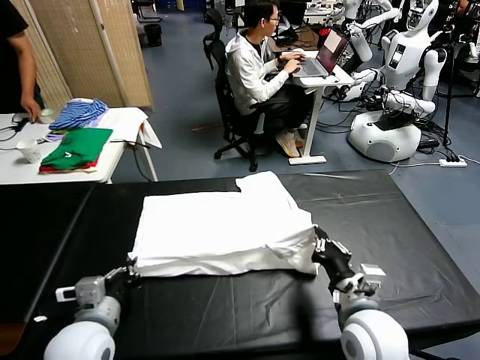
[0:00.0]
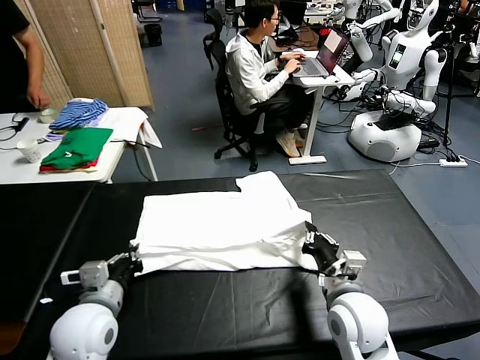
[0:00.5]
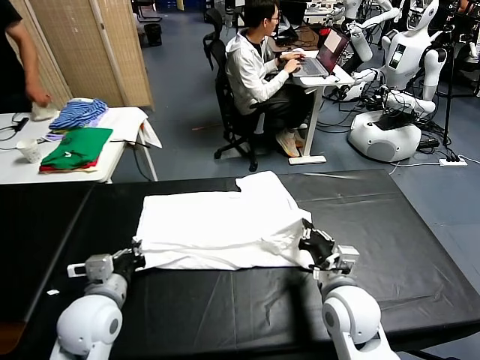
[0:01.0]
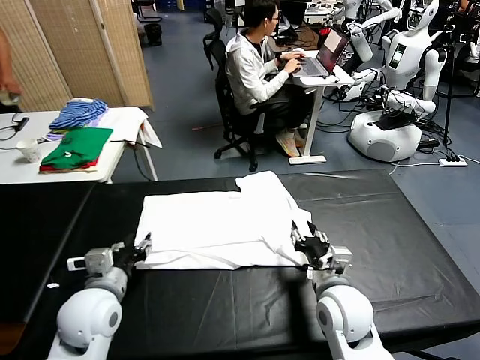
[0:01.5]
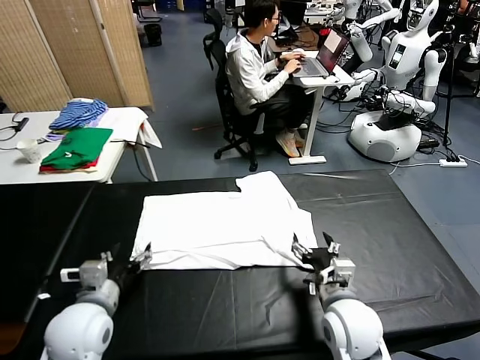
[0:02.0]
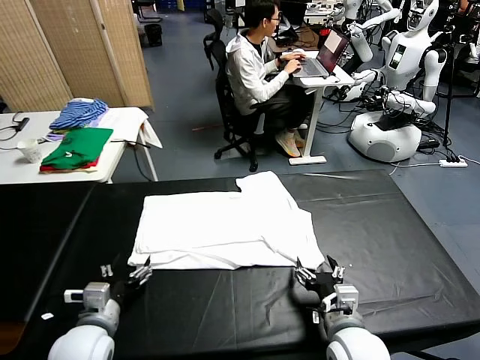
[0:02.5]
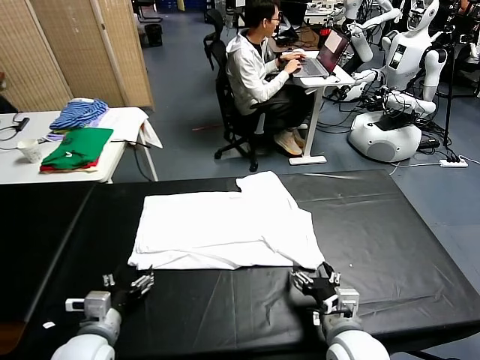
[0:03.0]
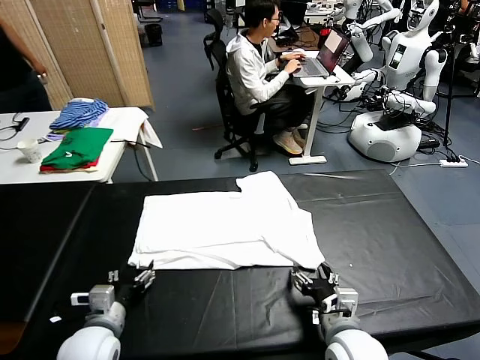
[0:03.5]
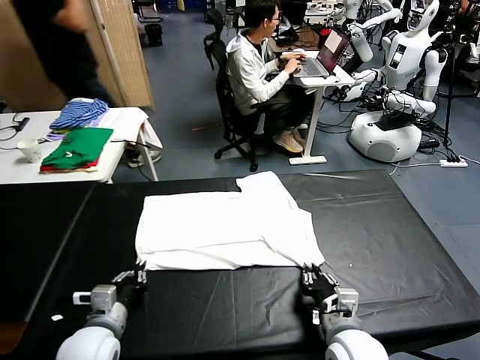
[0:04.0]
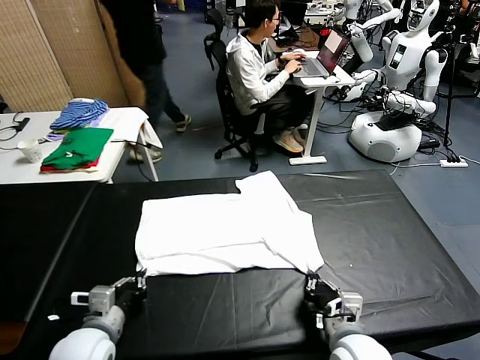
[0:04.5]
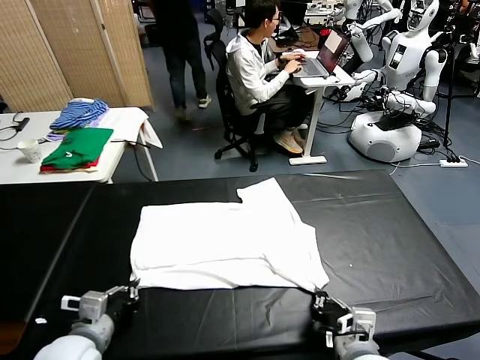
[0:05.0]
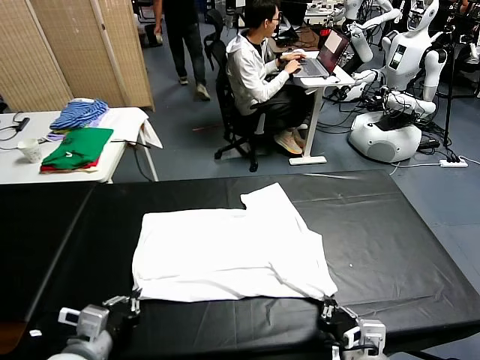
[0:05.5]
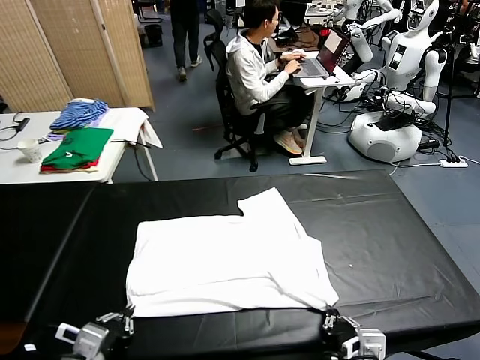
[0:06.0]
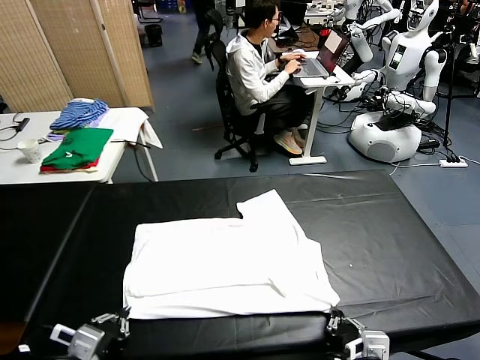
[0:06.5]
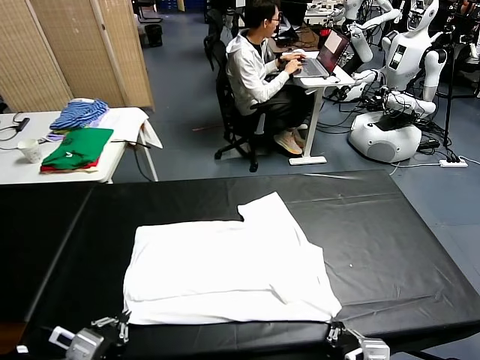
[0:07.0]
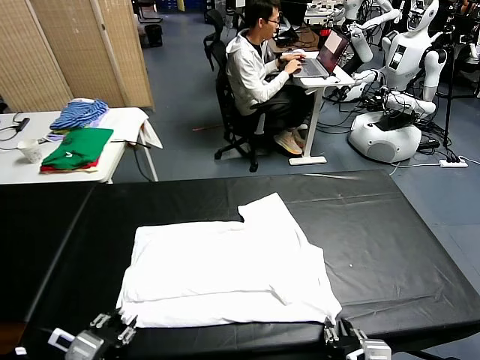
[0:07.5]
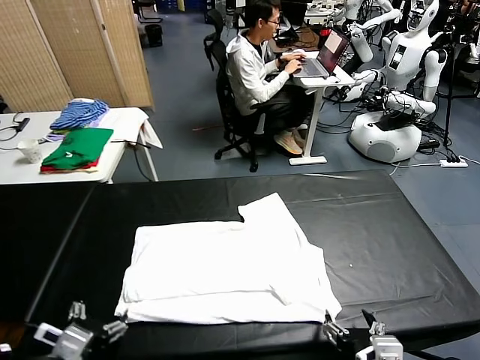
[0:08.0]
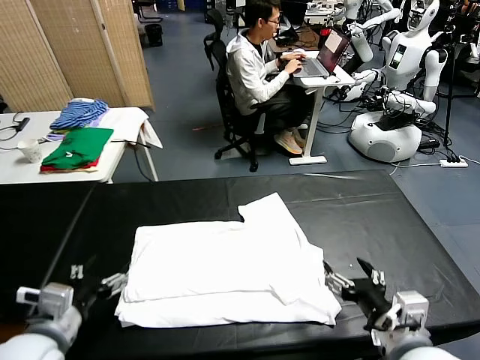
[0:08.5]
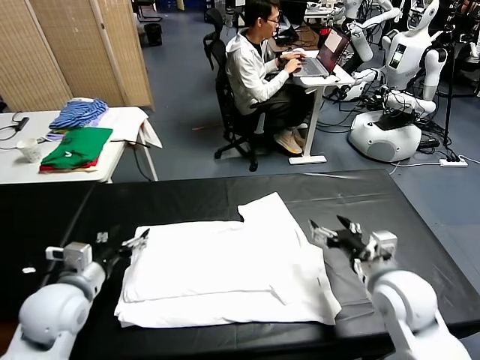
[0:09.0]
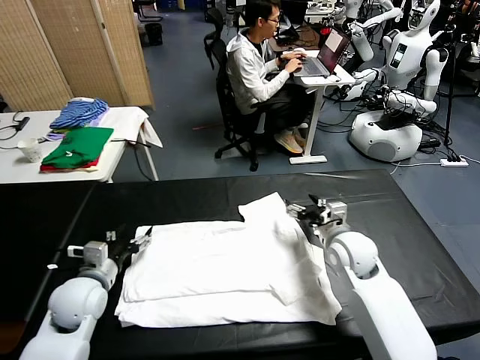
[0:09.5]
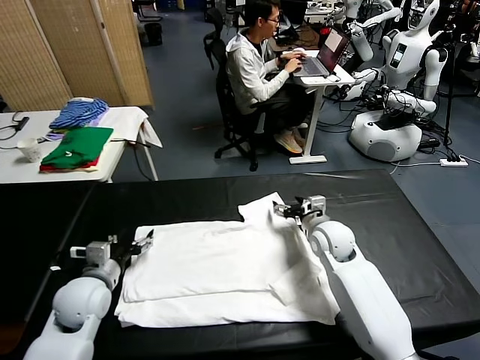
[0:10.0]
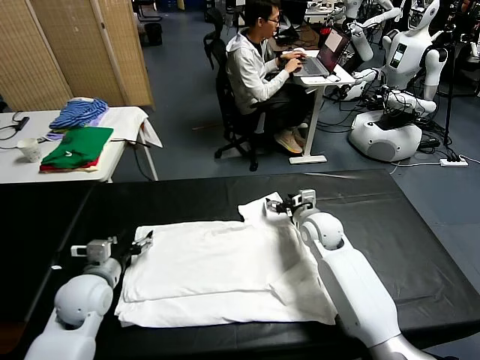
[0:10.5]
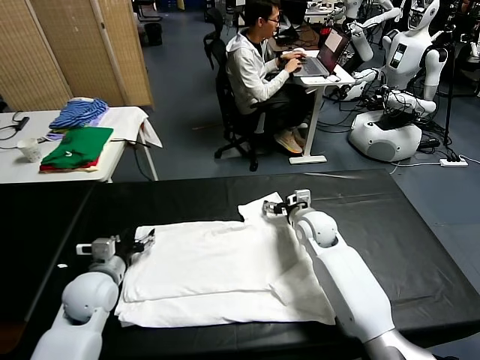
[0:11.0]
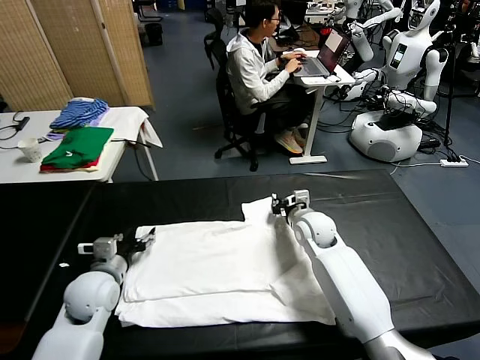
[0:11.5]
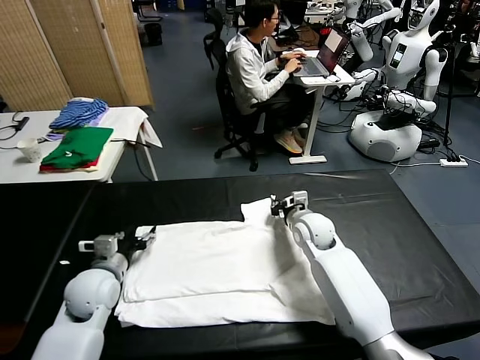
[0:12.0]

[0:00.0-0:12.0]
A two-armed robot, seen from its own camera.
Task of the whole recording: fold and organize the clothes.
Step, 0:00.0 to 0:01.5: use both grippers to drag the lower edge of the fabric forward and fold it over the upper edge.
Step, 0:02.0 to 0:07.5: Drag the clothes downward with both gripper.
0:00.0 to 0:02.0: The left gripper is displaced downward by roughly 5 cm, and opens; the right gripper moves backward, roughly 5 cm, and opens its fingers.
0:02.0 to 0:04.0: The right gripper closes its fingers; the left gripper travels backward and upward by roughly 10 cm, and closes.
0:04.0 to 0:06.0: The right gripper shifts some 5 cm backward.
0:06.0 to 0:08.0: The left gripper goes about 20 cm forward, and opens; the right gripper heads forward and to the right, covering roughly 20 cm, and opens its fingers.
0:08.0 to 0:10.0: The right gripper is displaced forward, to the left and downward by some 25 cm.
0:10.0 to 0:12.0: The left gripper closes its fingers; the right gripper closes its fingers.

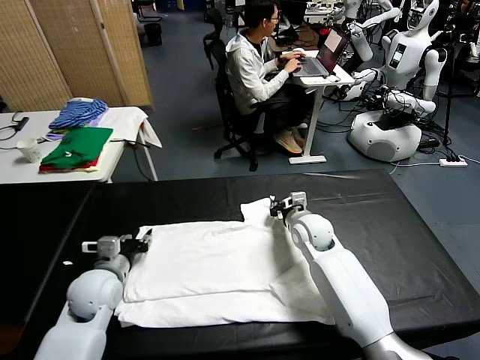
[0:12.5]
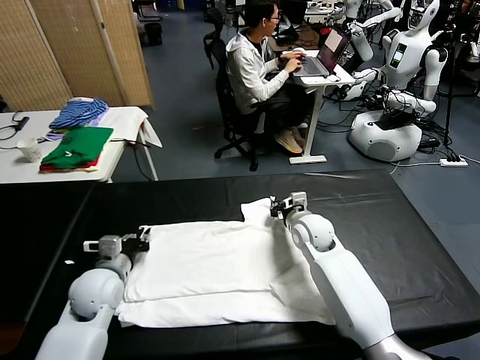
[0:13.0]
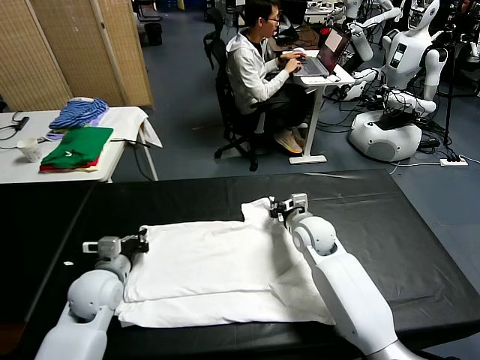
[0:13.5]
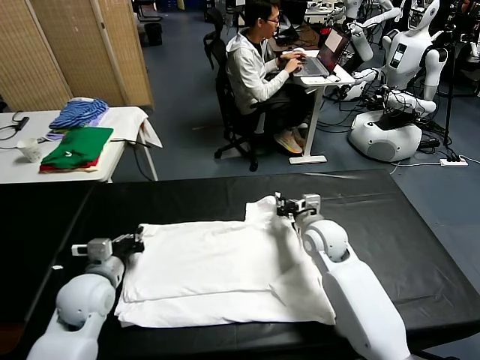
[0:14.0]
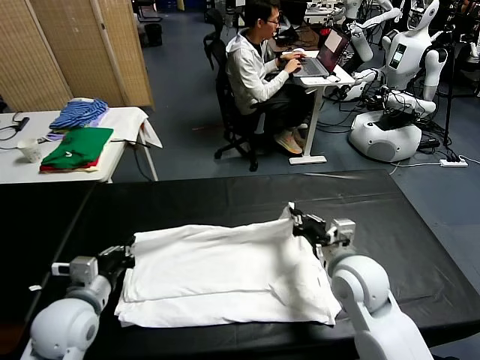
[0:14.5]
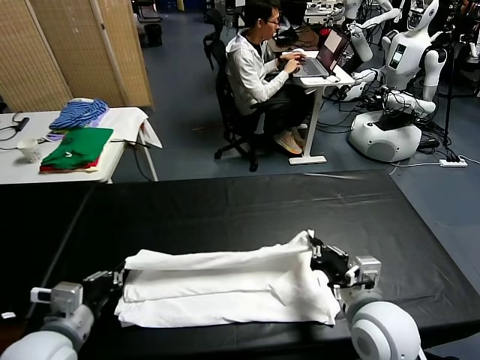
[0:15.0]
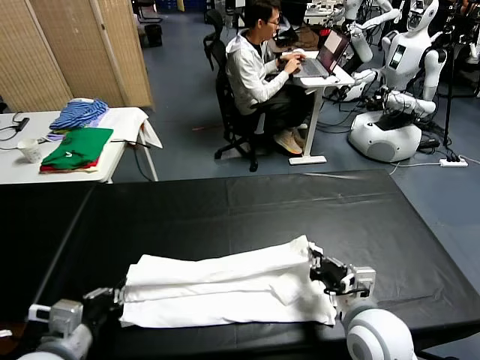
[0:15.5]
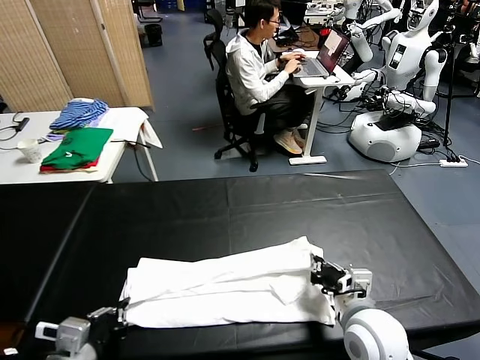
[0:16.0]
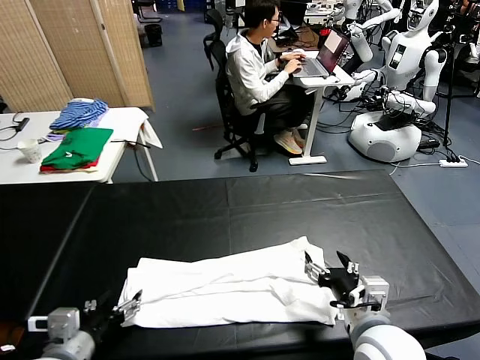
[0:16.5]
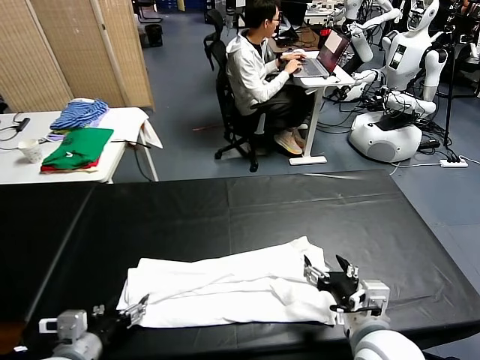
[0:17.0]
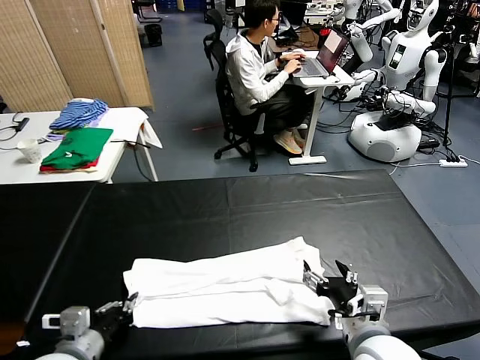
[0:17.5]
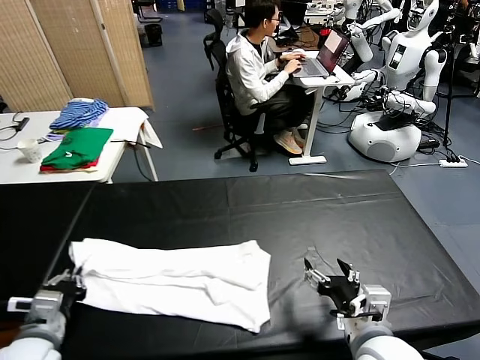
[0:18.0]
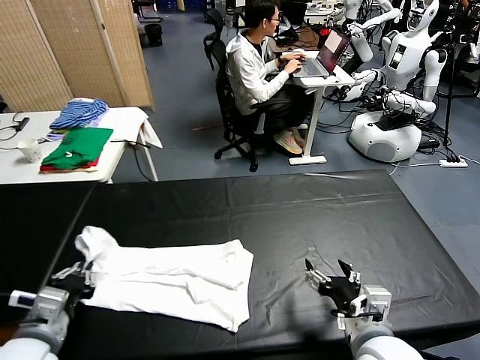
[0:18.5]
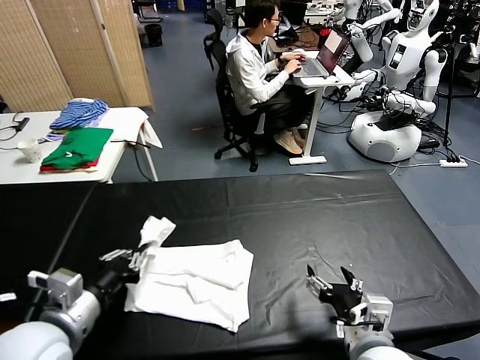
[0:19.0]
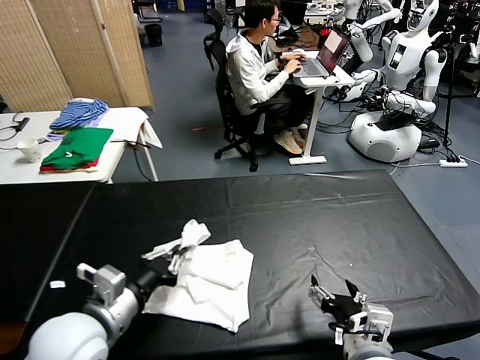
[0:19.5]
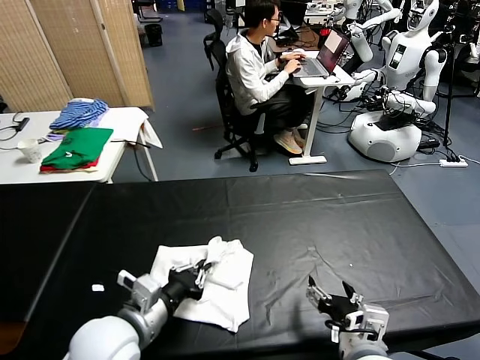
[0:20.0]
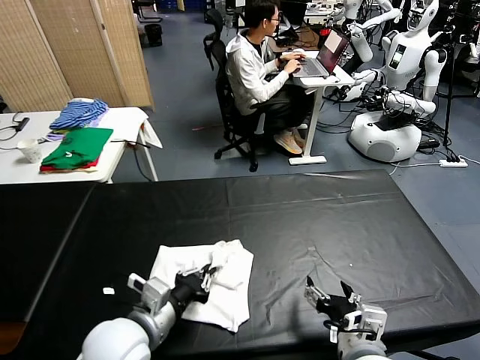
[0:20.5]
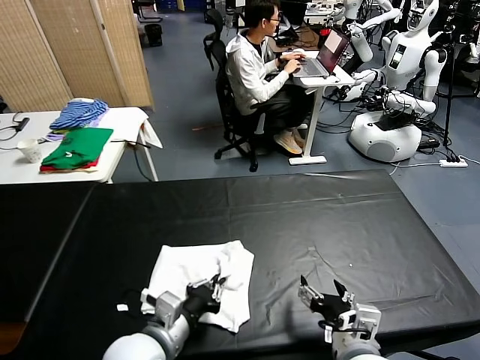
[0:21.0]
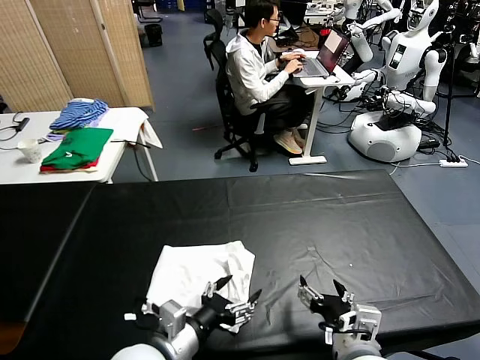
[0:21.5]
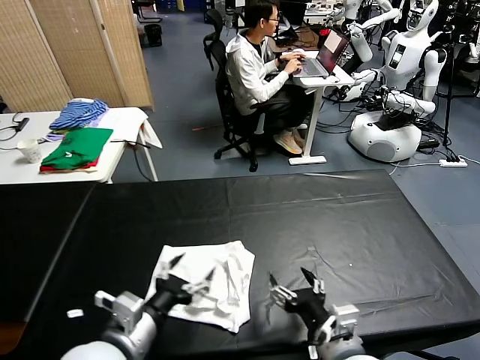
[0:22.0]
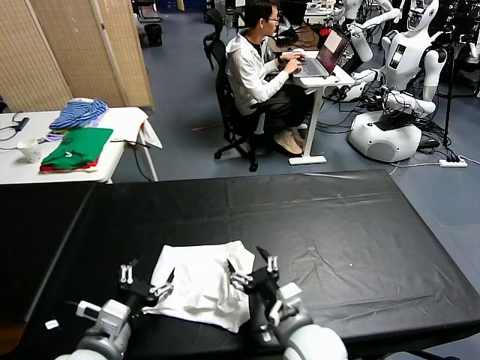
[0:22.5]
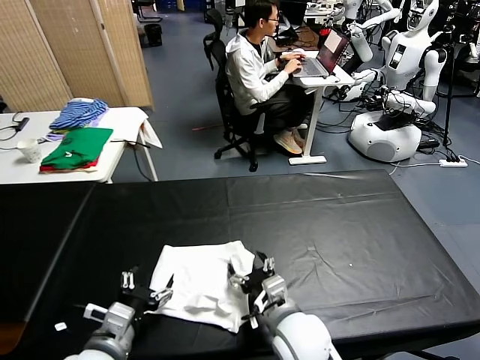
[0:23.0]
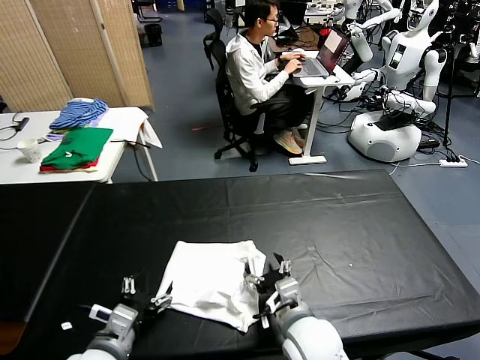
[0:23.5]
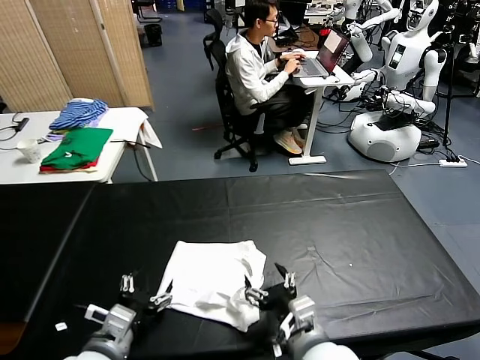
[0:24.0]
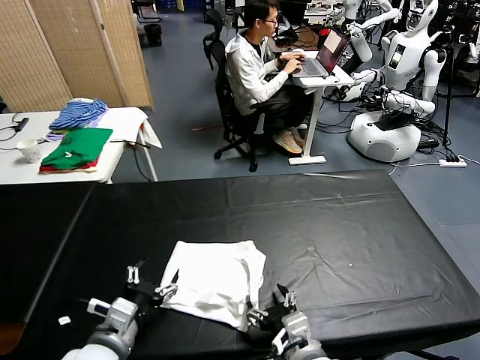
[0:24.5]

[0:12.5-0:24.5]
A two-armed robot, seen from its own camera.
Task of the whole recording: fold and organize the clothes.
Step, 0:14.5 to 0:16.0: use both grippers to drag the upper edge of the fabric backward and fold it over the lower edge.
Step, 0:16.5 to 0:17.5: use the left gripper to clamp the left edge of the fabric.
Step, 0:18.0 to 0:21.5: use the left gripper to drag the left edge of the fabric to the left and folds it over the right edge.
0:12.5 to 0:14.5: The left gripper shifts some 15 cm backward. The right gripper travels backward by approximately 25 cm.
0:14.5 to 0:16.5: The right gripper opens its fingers. The left gripper ends up approximately 5 cm from where it was, and opens.
0:16.5 to 0:18.5: The left gripper travels upward by some 10 cm, and closes.
0:18.5 to 0:20.5: The left gripper goes roughly 10 cm to the right.
0:20.5 to 0:22.5: The left gripper heads to the left, covering about 5 cm, and opens its fingers.

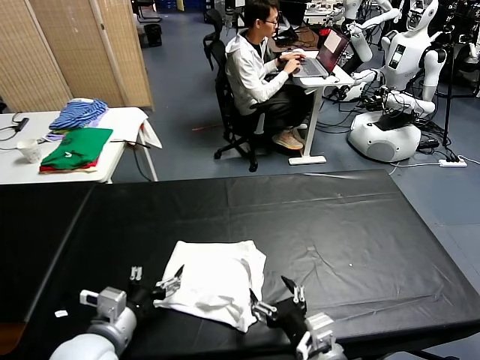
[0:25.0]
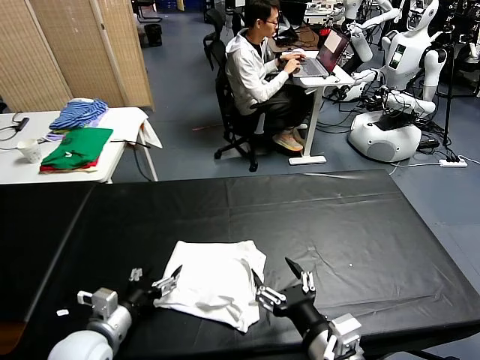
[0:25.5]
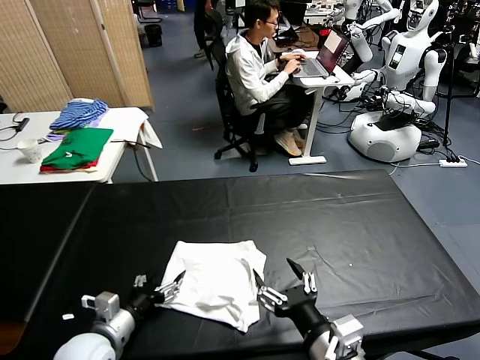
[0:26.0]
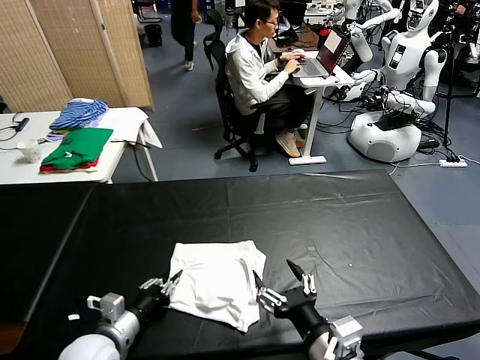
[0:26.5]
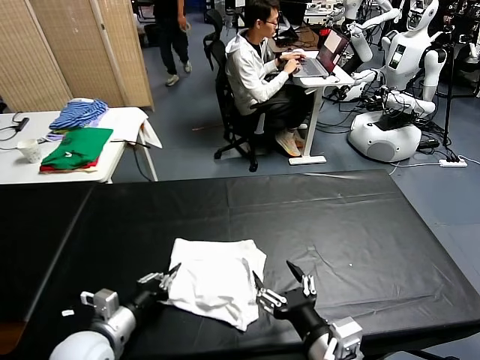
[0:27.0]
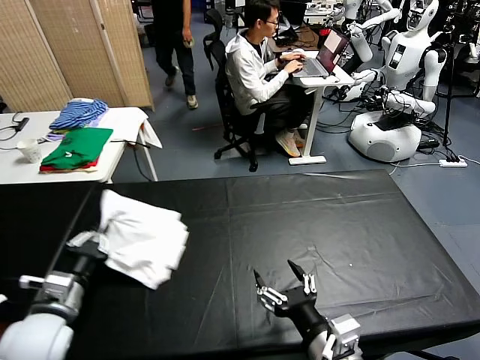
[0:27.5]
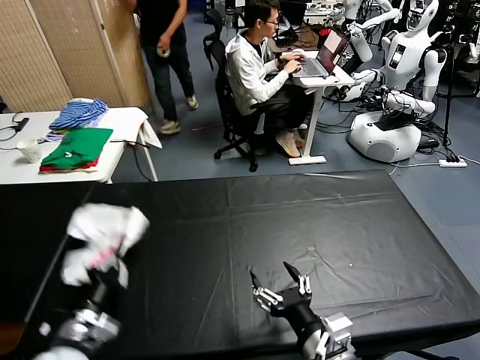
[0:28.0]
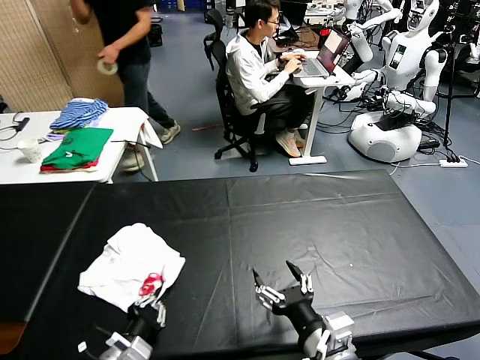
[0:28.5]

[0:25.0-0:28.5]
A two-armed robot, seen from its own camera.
Task of the whole recording: fold and organize the clothes.
0:25.0 to 0:27.0: The left gripper moves roughly 5 cm, and closes. Meanwhile the right gripper moves roughly 5 cm.
0:27.0 to 0:28.5: The left gripper moves backward, approximately 5 cm.
